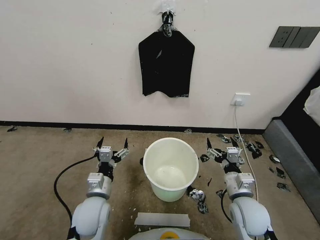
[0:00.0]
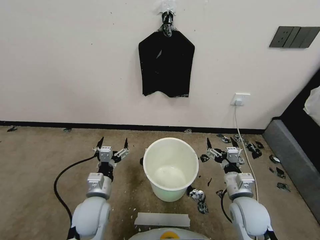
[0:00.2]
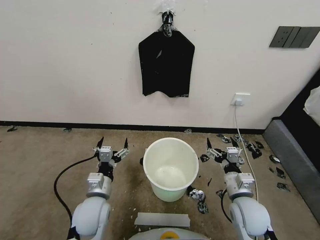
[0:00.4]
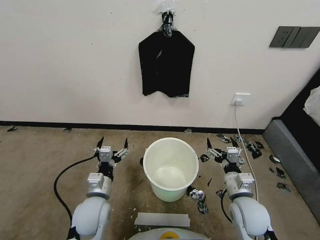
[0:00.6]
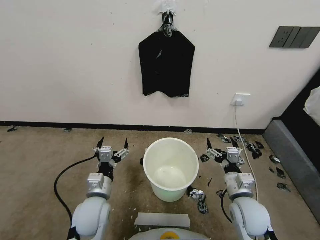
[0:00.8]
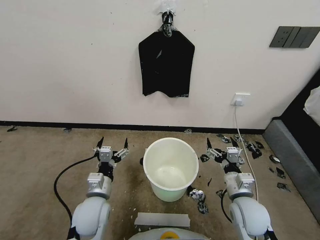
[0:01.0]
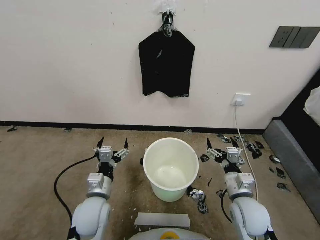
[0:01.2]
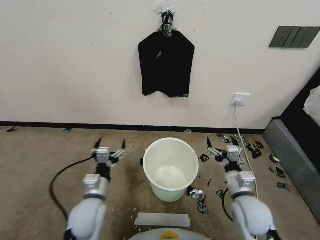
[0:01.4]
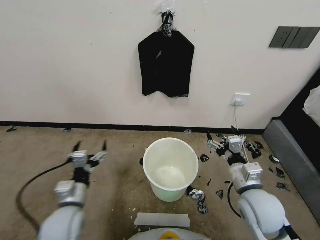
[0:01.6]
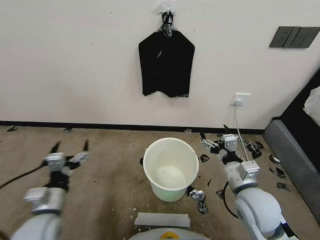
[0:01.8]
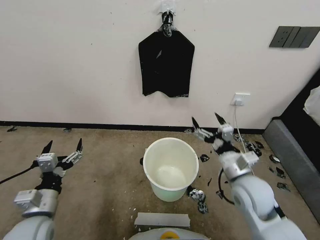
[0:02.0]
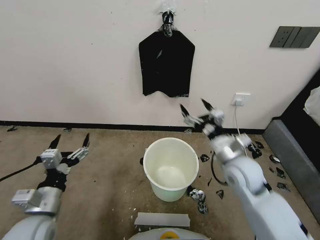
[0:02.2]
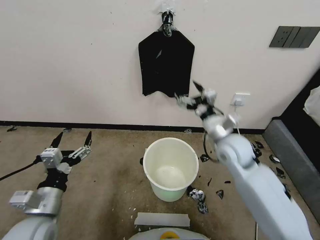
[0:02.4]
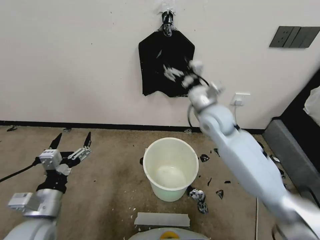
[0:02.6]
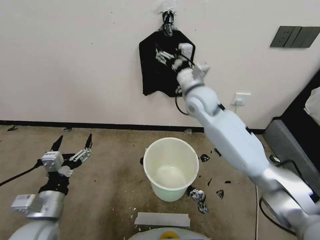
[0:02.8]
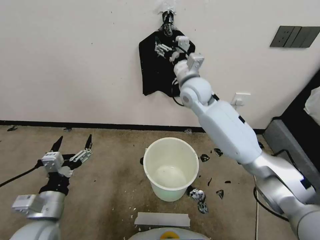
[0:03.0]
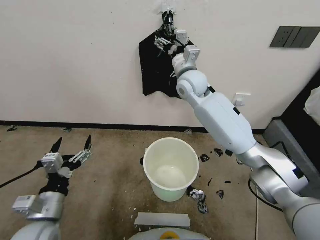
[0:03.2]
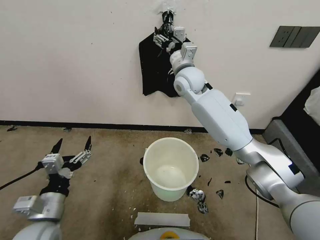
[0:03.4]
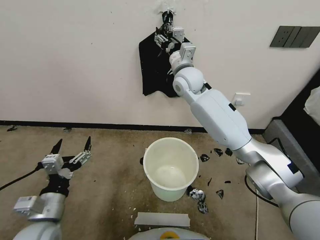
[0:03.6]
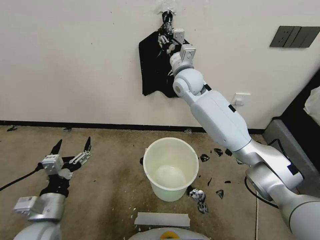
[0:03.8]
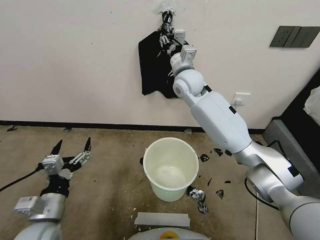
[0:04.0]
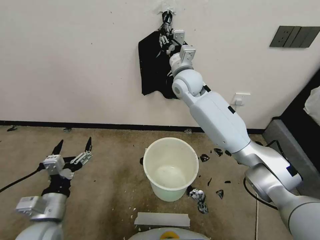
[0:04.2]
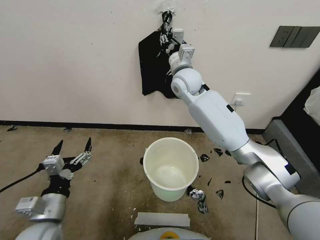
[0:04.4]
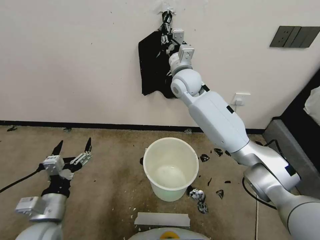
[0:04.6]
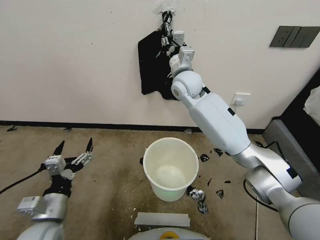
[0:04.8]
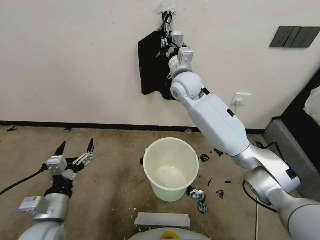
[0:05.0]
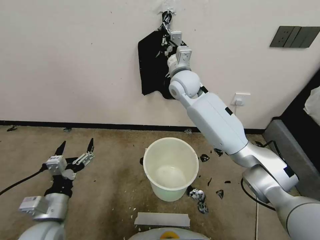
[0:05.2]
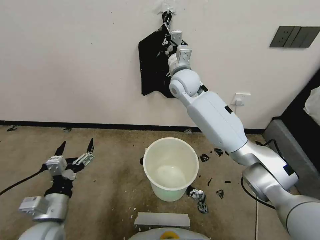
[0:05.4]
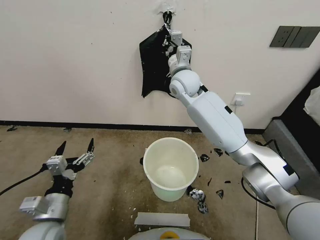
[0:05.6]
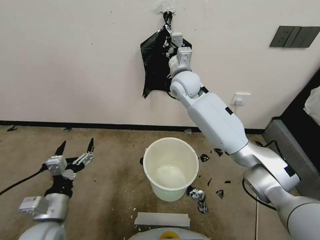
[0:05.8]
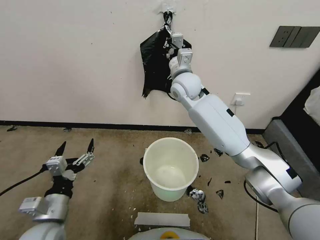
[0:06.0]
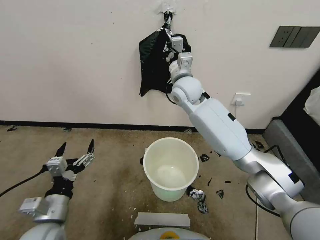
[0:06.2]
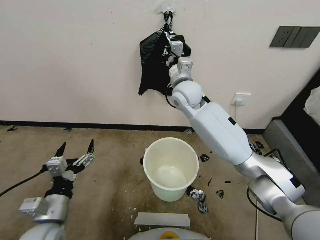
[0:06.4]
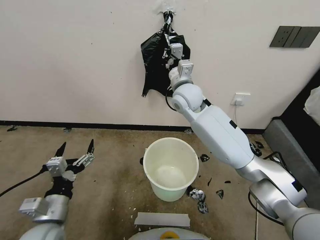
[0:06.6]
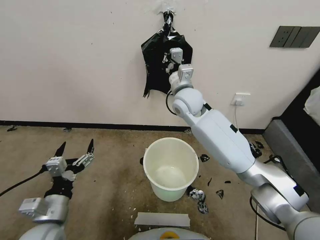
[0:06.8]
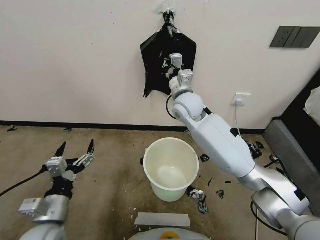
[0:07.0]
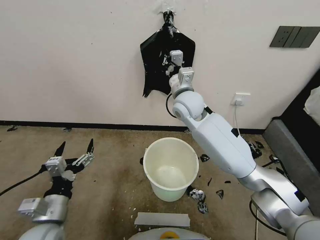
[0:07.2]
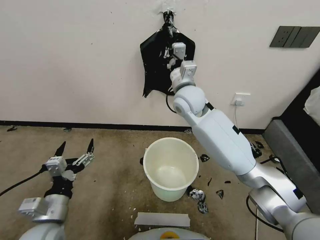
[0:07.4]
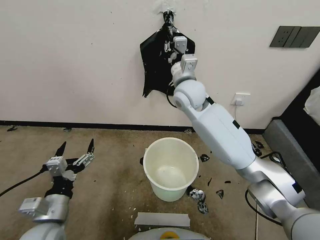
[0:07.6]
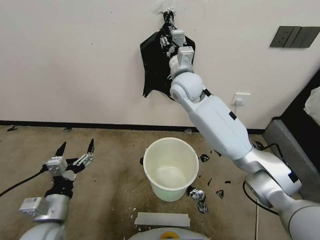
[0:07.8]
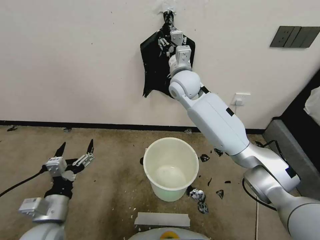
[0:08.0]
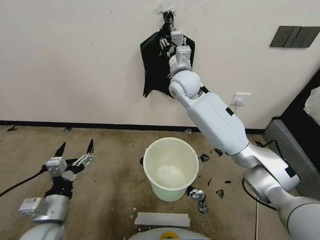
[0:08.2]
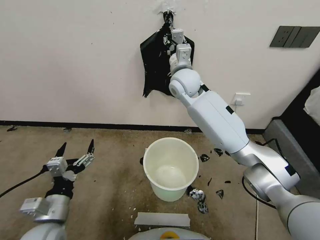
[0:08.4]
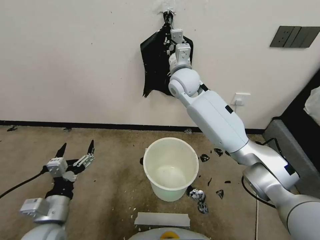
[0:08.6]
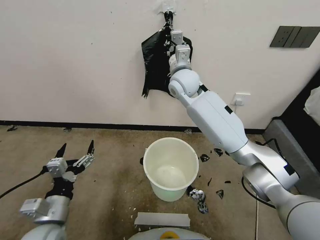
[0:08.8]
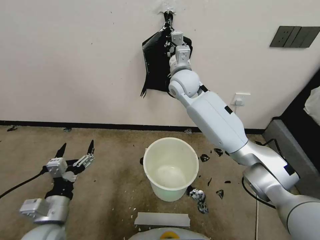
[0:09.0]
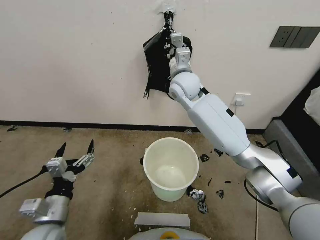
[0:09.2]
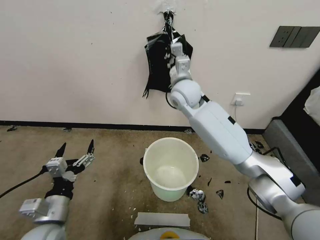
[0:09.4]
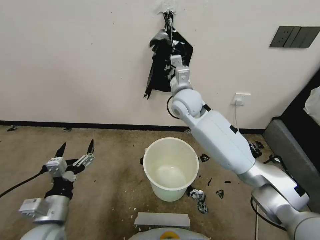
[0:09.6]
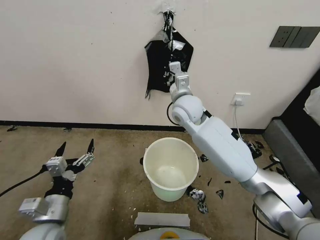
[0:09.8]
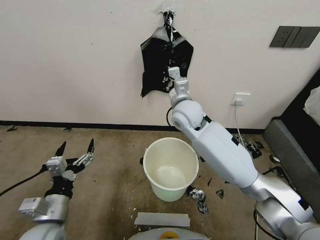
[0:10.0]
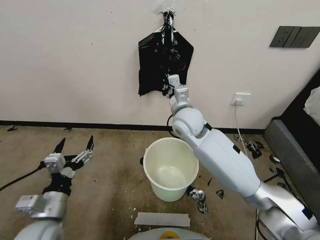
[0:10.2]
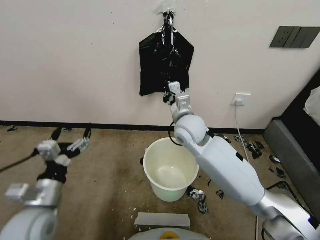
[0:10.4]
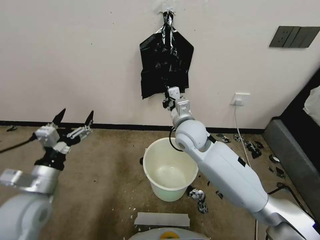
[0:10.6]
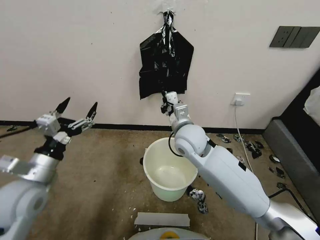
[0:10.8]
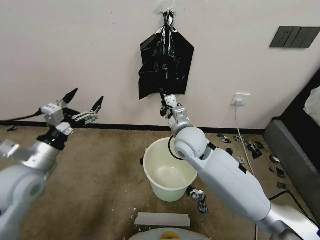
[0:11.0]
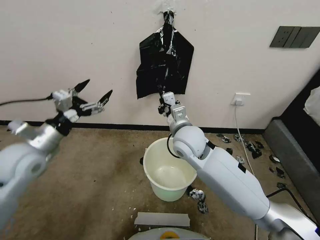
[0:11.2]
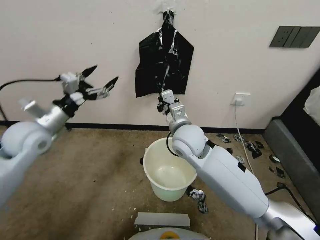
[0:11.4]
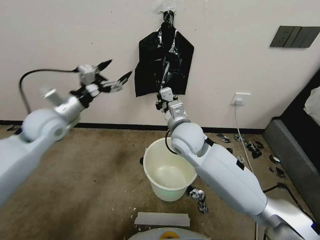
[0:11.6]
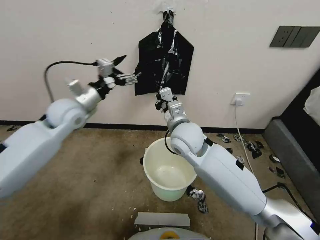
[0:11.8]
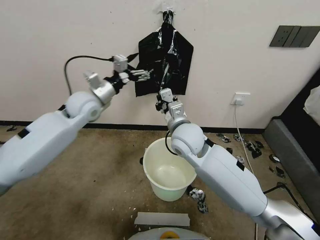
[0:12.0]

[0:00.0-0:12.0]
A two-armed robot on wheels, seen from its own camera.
Task of the whole recording: Place a trash bag onto the trash bin.
0:01.6 to 0:03.0: The left gripper heads upward, covering some 5 cm, while the right gripper shifts roughly 35 cm forward, upward and to the left.
0:03.0 to 0:04.4: The right gripper closes its fingers.
0:04.4 to 0:06.0: The right gripper closes up.
0:07.6 to 0:09.0: The right gripper ends up some 5 cm from where it was, and opens, then closes once more.
0:09.0 to 0:10.4: The left gripper ends up about 5 cm from where it was. Meanwhile the right gripper travels backward and downward by about 15 cm.
0:10.4 to 0:12.0: The left gripper goes about 30 cm forward and upward.

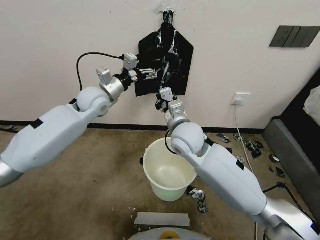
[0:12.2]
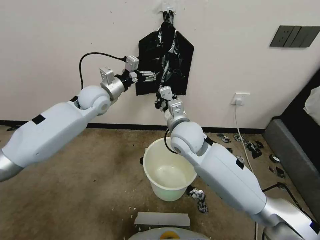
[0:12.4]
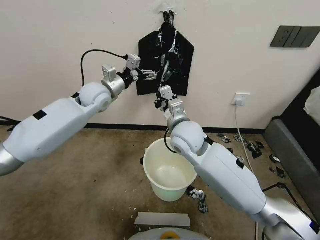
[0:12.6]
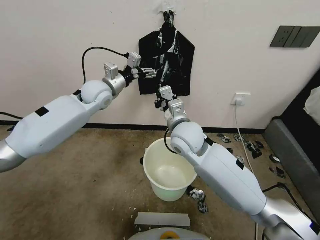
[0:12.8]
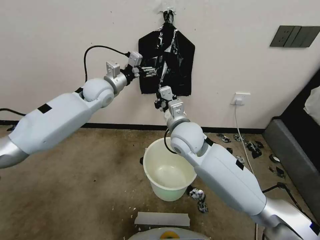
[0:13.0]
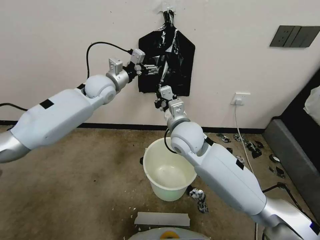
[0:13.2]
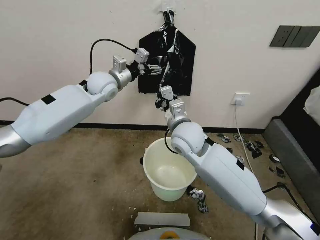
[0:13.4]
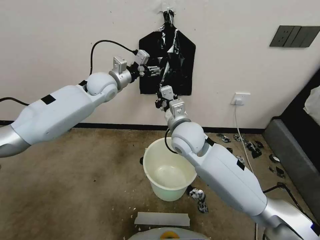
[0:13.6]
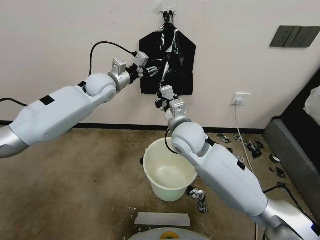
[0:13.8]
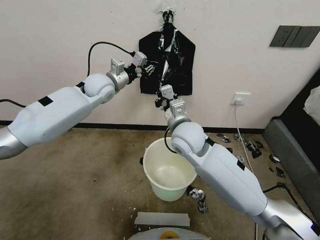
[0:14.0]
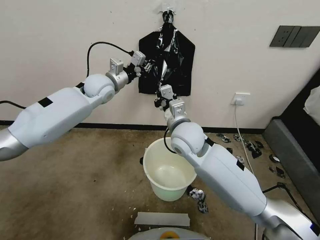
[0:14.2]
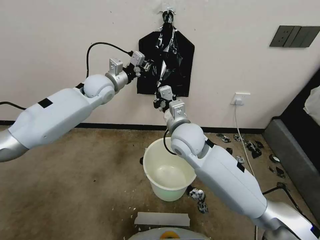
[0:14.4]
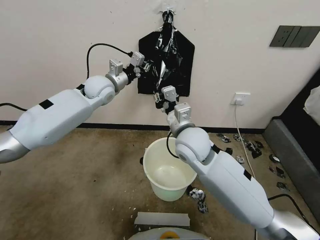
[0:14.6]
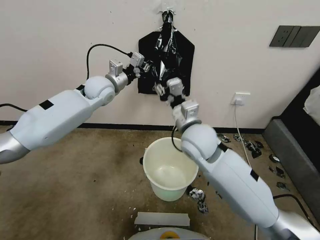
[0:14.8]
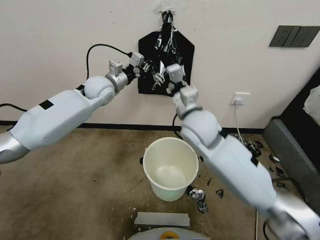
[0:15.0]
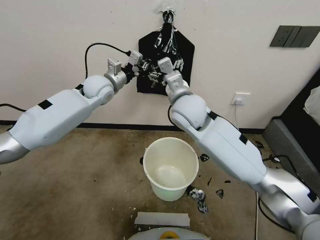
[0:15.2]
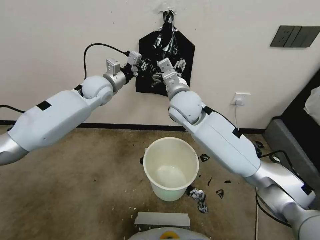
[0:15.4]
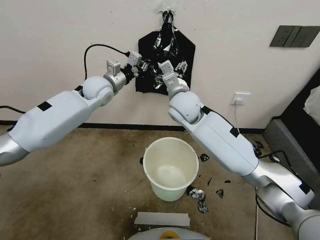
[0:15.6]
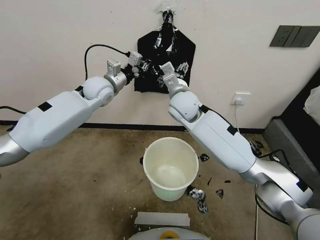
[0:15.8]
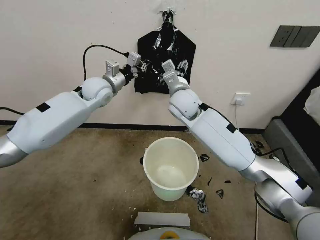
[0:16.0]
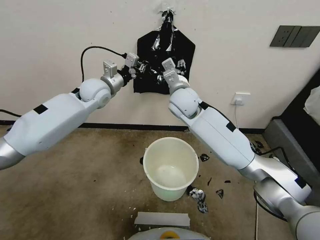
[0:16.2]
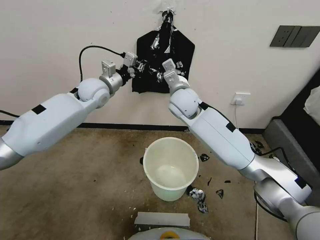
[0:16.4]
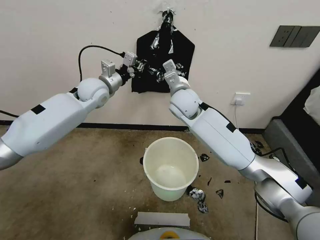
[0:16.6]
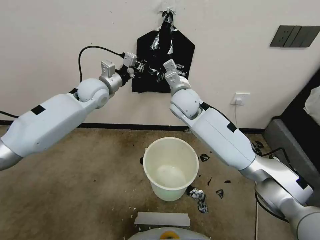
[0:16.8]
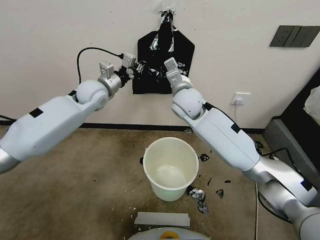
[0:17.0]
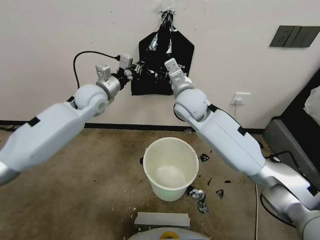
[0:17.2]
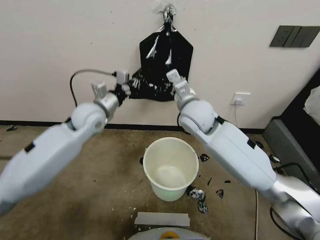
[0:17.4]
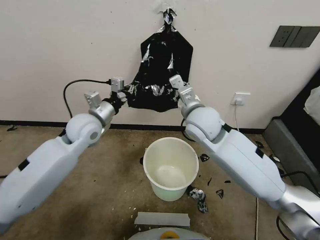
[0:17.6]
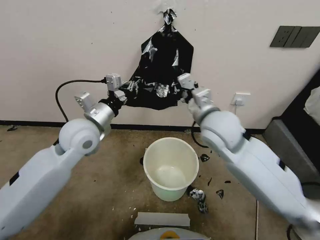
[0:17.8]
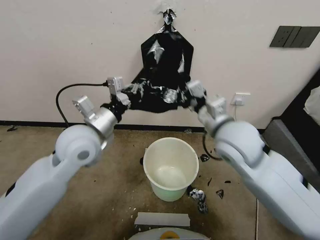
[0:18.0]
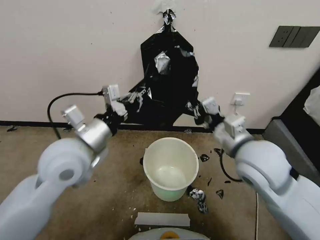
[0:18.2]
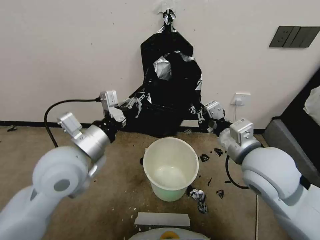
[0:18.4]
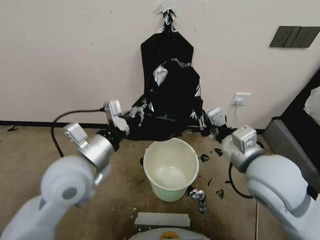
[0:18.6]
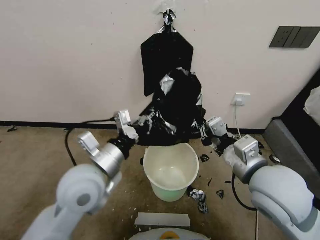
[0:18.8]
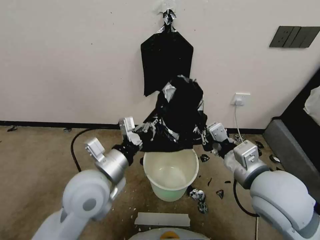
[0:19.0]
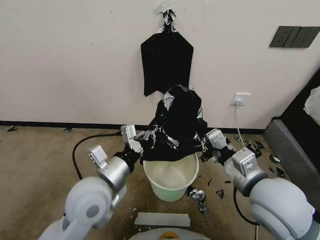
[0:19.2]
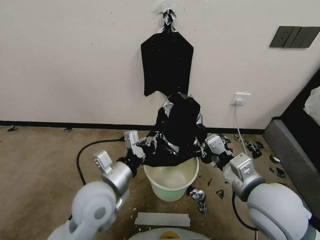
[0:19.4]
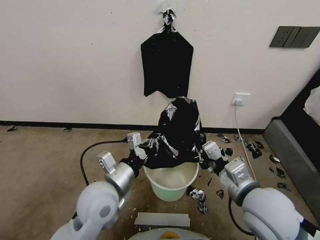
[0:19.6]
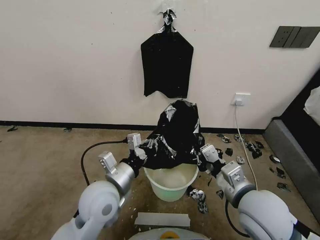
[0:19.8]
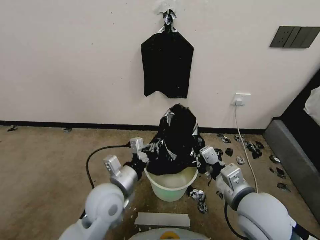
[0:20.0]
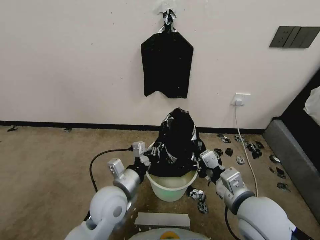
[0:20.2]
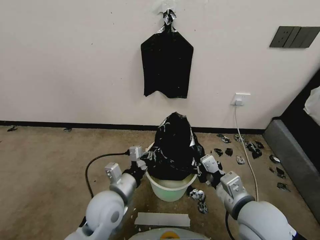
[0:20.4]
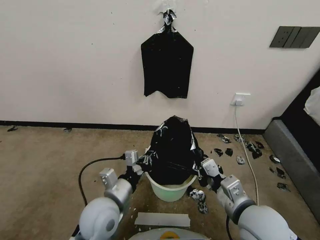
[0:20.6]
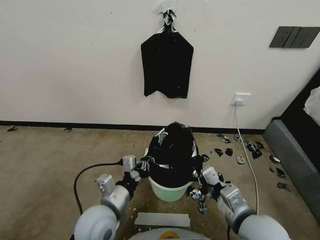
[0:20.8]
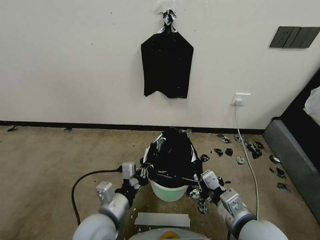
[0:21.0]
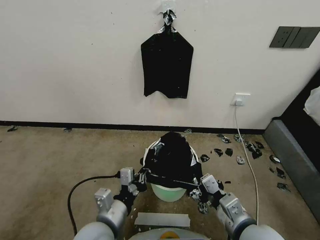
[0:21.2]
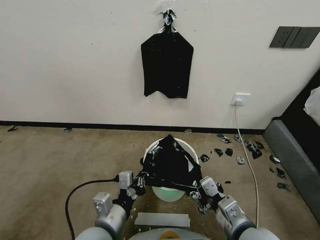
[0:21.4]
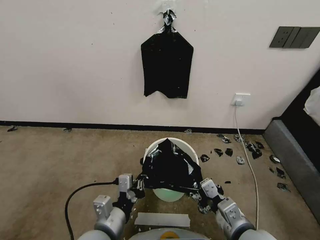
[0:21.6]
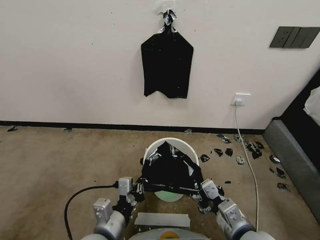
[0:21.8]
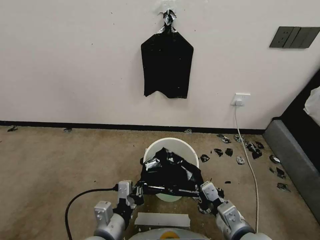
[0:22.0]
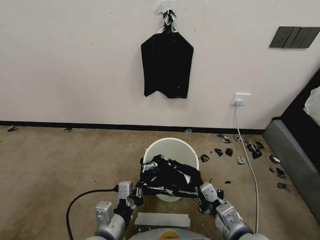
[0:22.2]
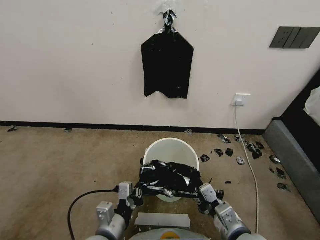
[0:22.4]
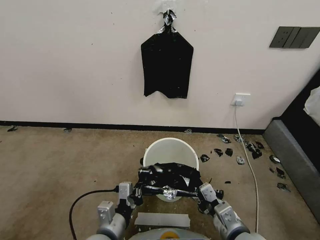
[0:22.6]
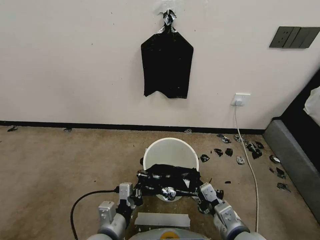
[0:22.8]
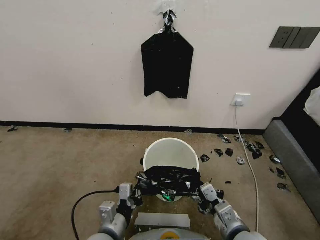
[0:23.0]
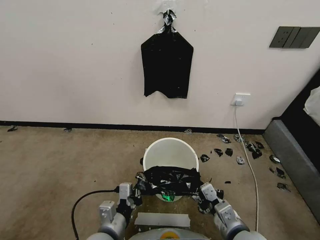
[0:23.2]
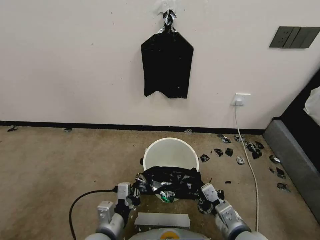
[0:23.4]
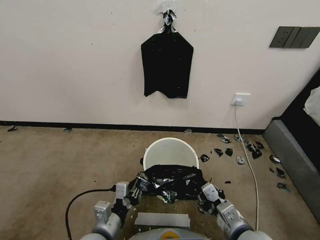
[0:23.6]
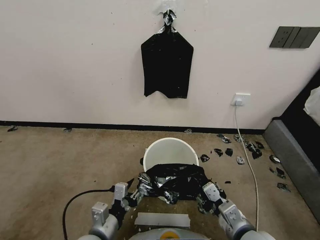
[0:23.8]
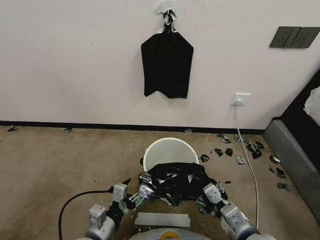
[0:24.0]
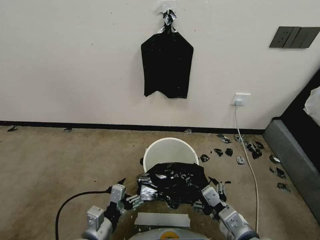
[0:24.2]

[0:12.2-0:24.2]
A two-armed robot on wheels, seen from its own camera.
Task of the whole recording: Place a trash bag onto the trash bin.
0:12.2 to 0:13.8: The left gripper ends up approximately 5 cm from where it was, and closes.
0:13.8 to 0:15.2: The left gripper closes up; the right gripper is displaced upward by some 5 cm, and opens.
0:15.2 to 0:16.6: The right gripper moves forward, some 5 cm, and closes its fingers.
0:16.6 to 0:18.2: The left gripper shifts some 25 cm backward. Meanwhile the right gripper heads backward and to the right, covering approximately 25 cm.
0:18.2 to 0:19.8: The right gripper shifts roughly 10 cm backward and downward, while the left gripper moves downward, roughly 15 cm.
0:19.8 to 0:21.2: The left gripper shifts about 10 cm backward; the right gripper moves backward and downward, some 10 cm.
0:21.2 to 0:22.6: The left gripper ends up roughly 5 cm from where it was.
0:22.6 to 0:24.2: The right gripper opens. The left gripper opens up.
